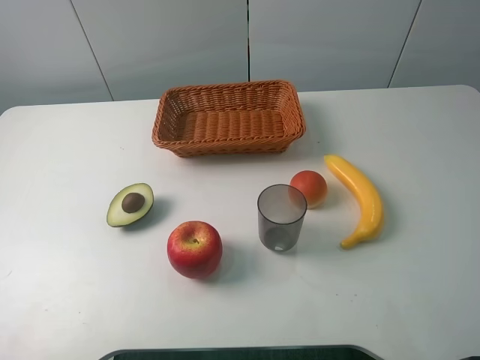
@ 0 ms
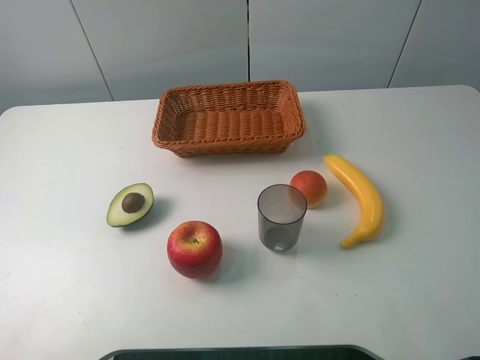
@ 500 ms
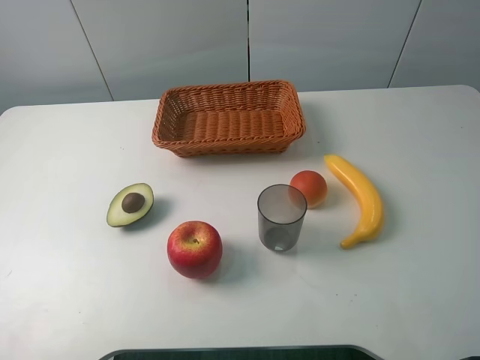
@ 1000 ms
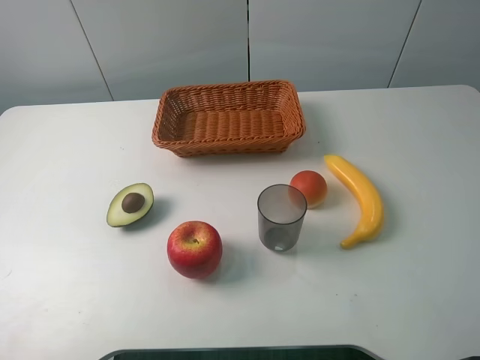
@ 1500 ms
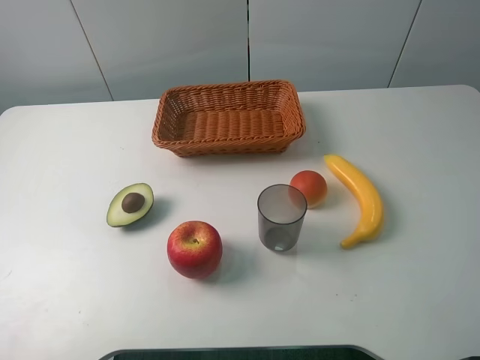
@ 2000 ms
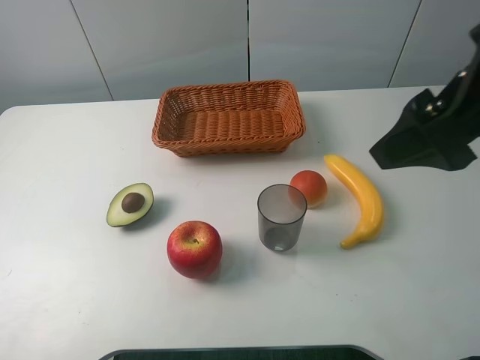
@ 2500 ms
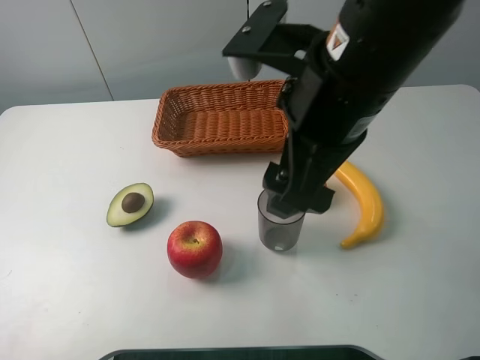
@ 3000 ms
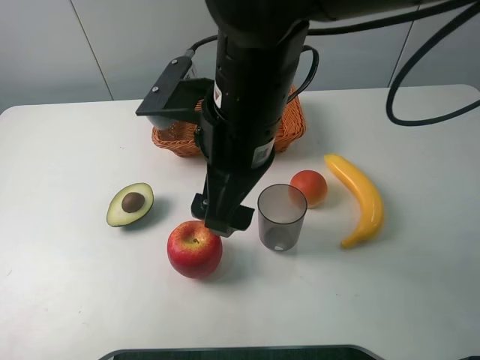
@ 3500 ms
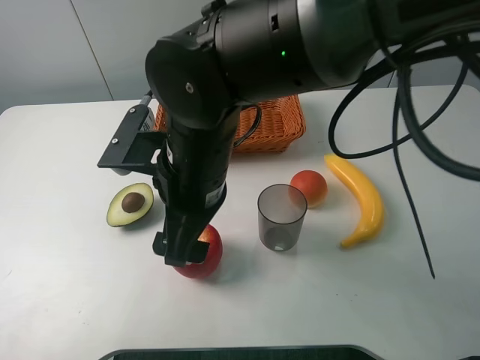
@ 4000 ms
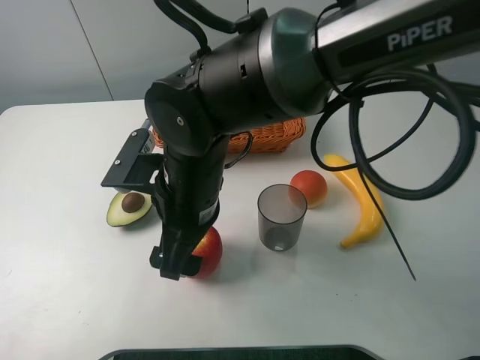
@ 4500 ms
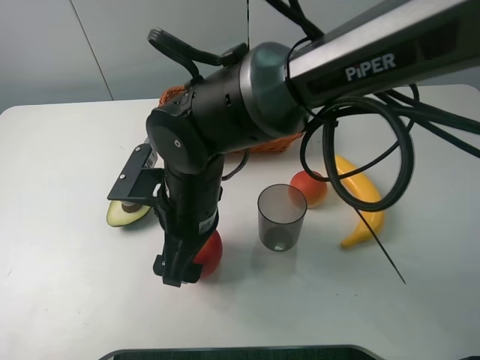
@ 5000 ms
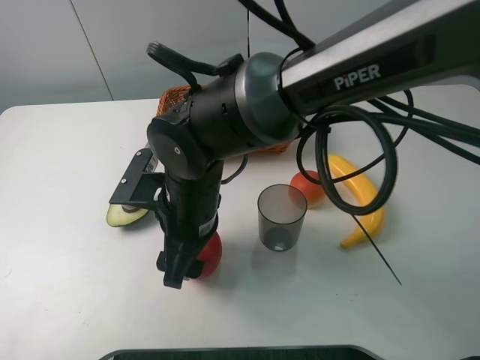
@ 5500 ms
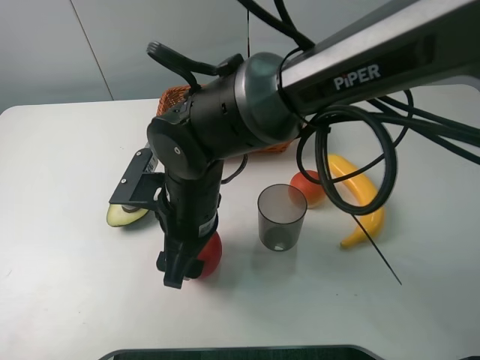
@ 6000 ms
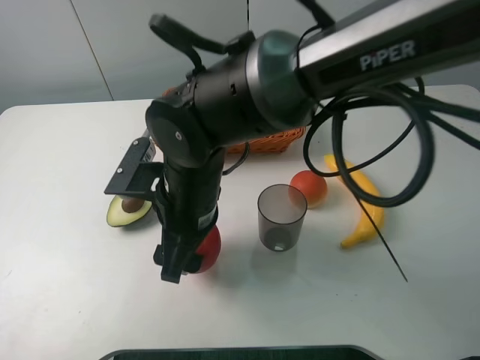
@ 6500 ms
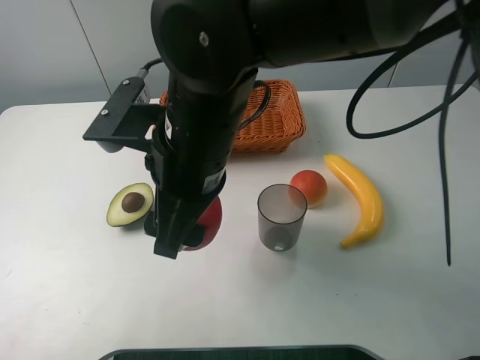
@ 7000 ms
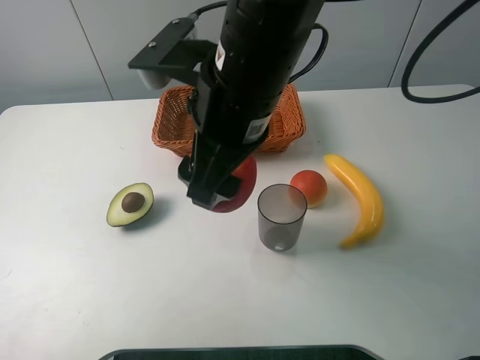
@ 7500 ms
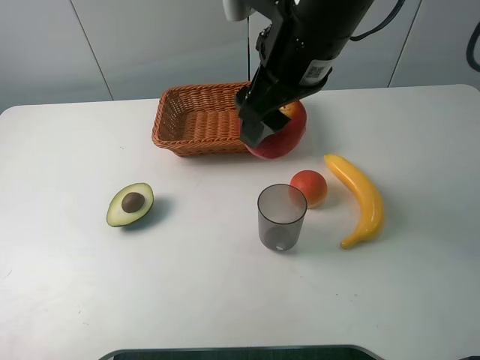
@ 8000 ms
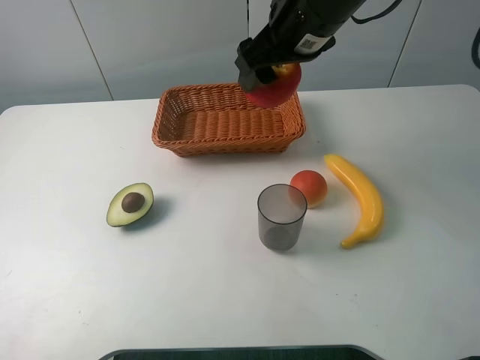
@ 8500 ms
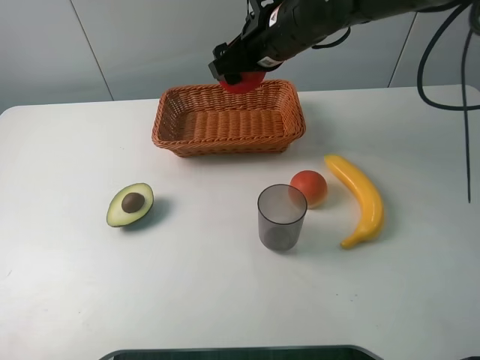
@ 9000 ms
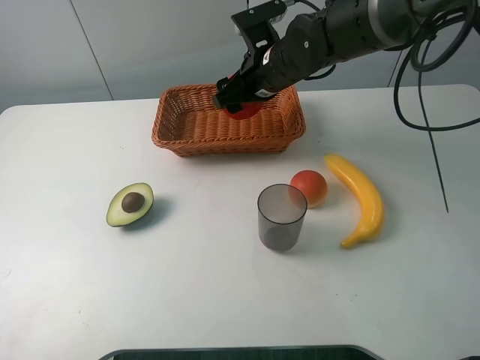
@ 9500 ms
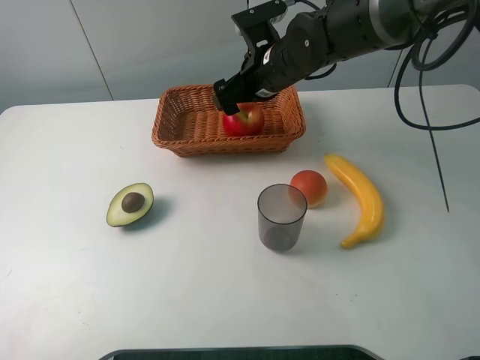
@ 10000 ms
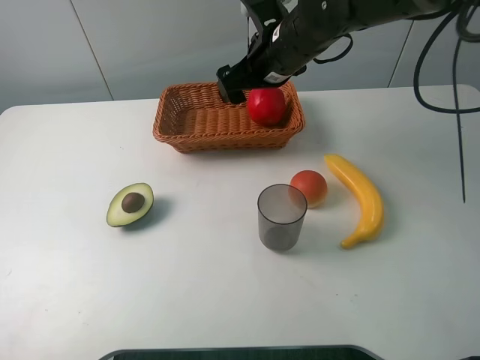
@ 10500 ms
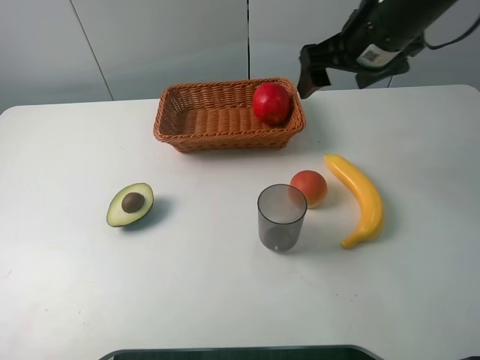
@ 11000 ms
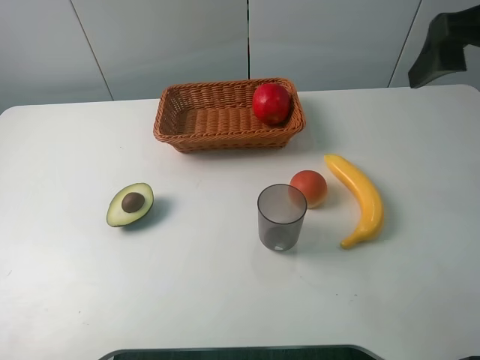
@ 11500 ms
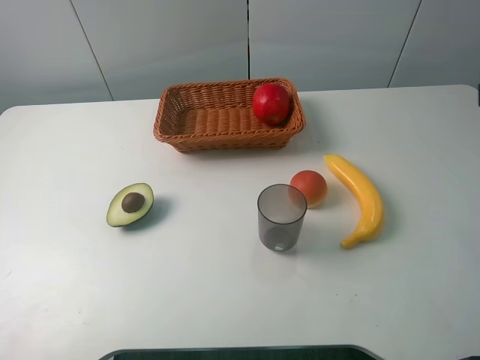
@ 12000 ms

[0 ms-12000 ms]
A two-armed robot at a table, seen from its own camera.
Task of the whole recording: randomly pick up an item from the table and put it in the basket.
Step, 0 ms to 5500 ms: Grasp the apple with the right gripper.
Step, 6000 ms to 10500 ms: Place the apple into the basket with the right gripper.
2000 ms to 4000 ms: The right gripper heads to the left and downward, covering some 35 cm.
4000 ms to 6000 ms: The right gripper heads downward, covering roughly 5 cm, and closes.
6000 ms to 8000 ms: The right gripper travels upward, to the right and forward by roughly 20 cm.
8000 ms to 10000 ms: The right gripper moves forward and downward, roughly 15 cm, and opens.
10000 ms to 12000 ms: The right gripper is displaced backward, to the right and upward by roughly 40 cm.

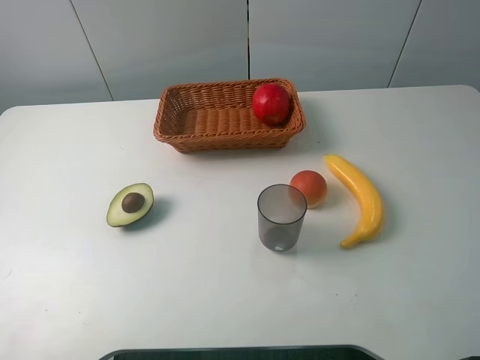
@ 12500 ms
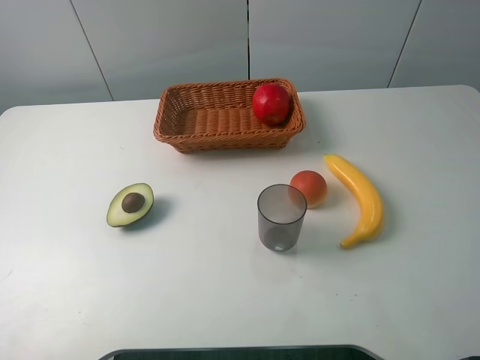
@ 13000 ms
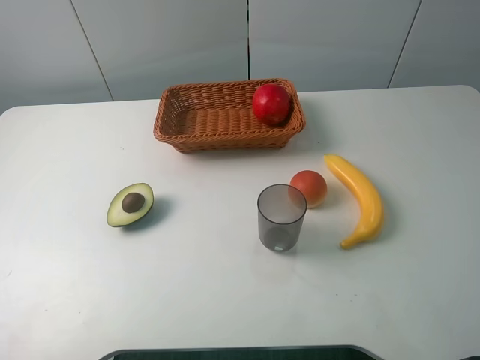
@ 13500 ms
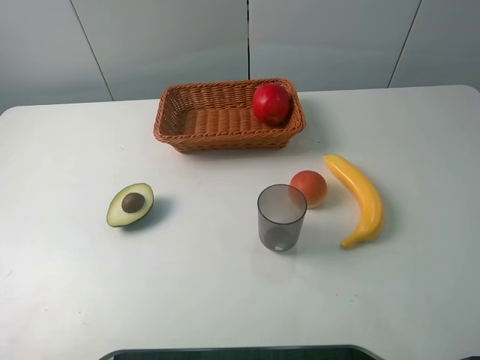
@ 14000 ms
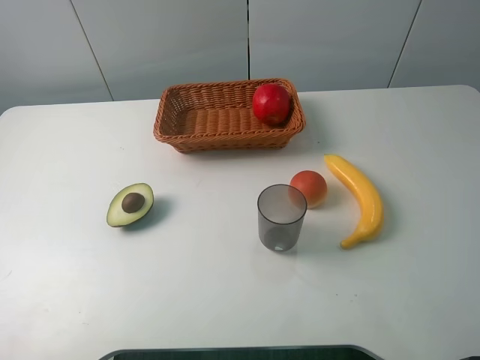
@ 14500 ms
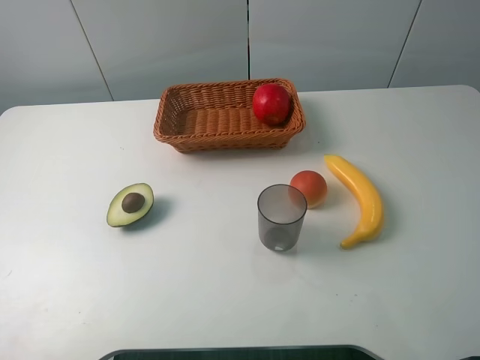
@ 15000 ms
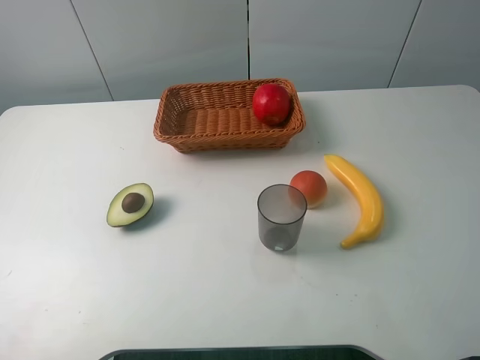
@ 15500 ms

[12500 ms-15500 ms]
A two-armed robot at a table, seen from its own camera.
Task of the whole recording: randomly pick up an item from the table and put it in the basket.
14000 ms to 15500 ms: Neither gripper changes place.

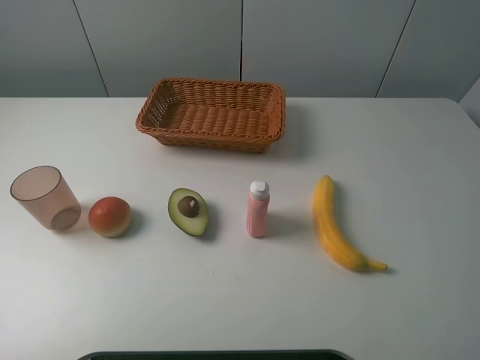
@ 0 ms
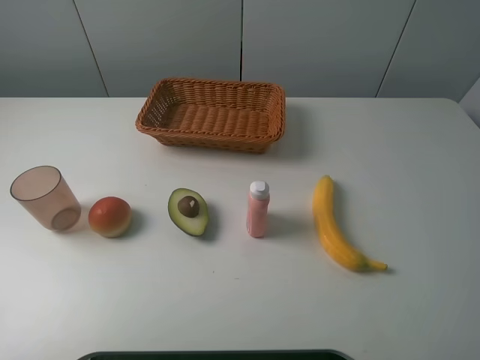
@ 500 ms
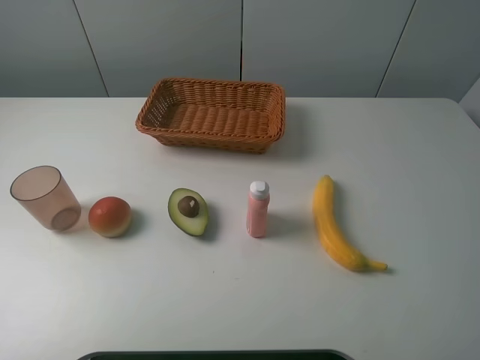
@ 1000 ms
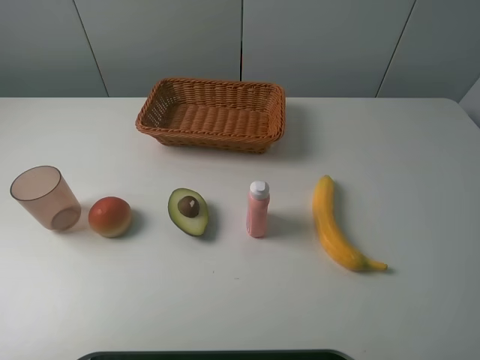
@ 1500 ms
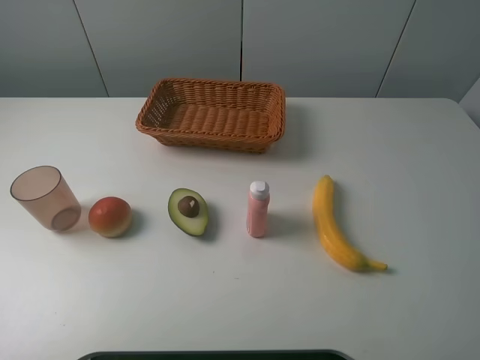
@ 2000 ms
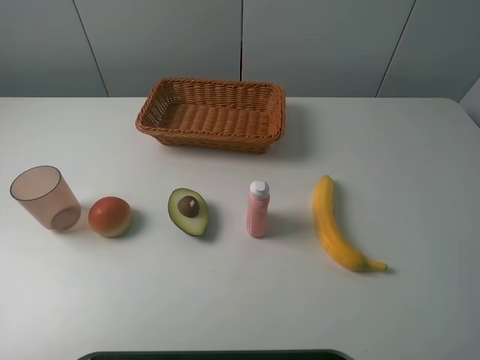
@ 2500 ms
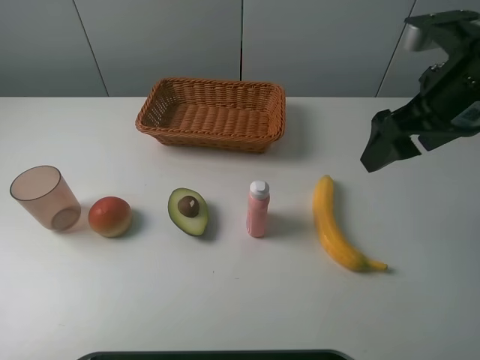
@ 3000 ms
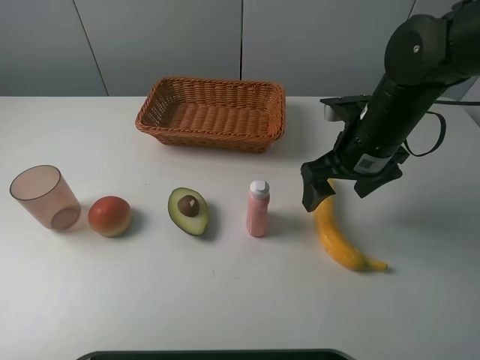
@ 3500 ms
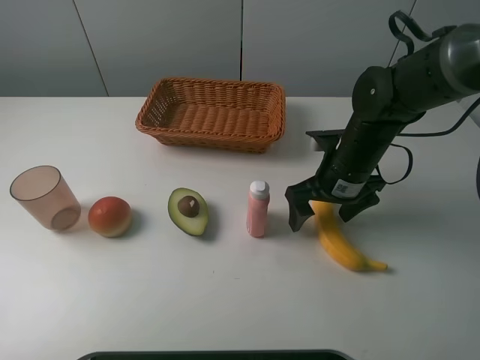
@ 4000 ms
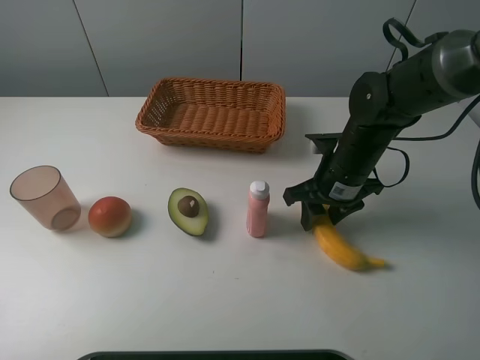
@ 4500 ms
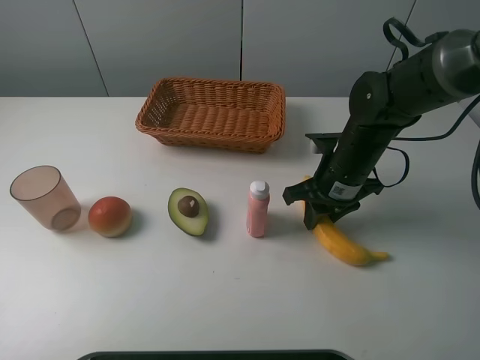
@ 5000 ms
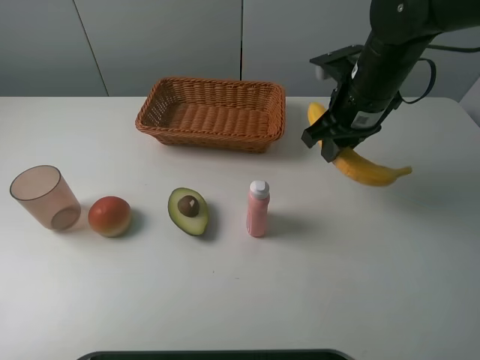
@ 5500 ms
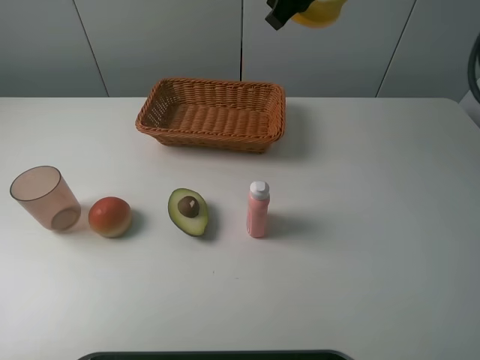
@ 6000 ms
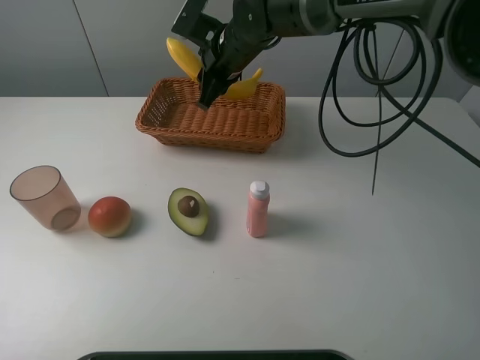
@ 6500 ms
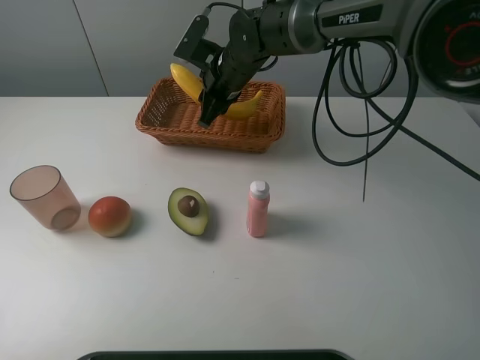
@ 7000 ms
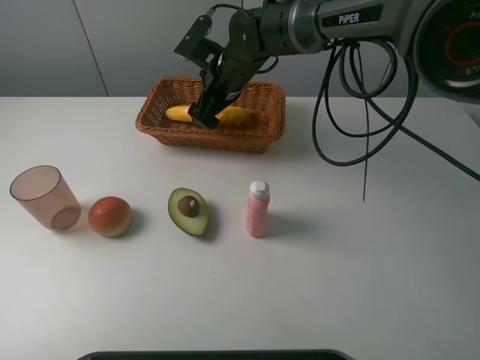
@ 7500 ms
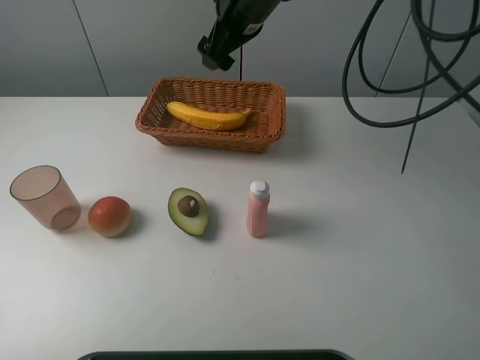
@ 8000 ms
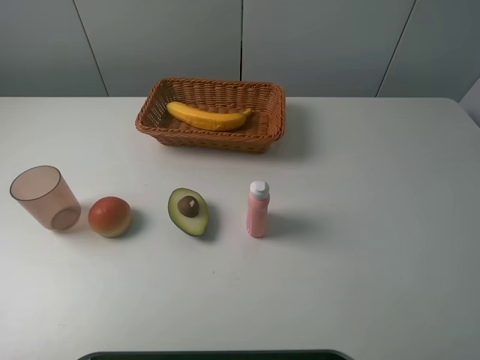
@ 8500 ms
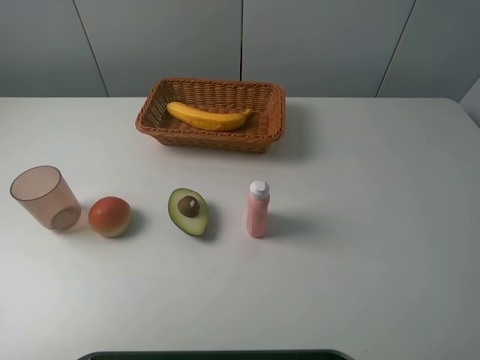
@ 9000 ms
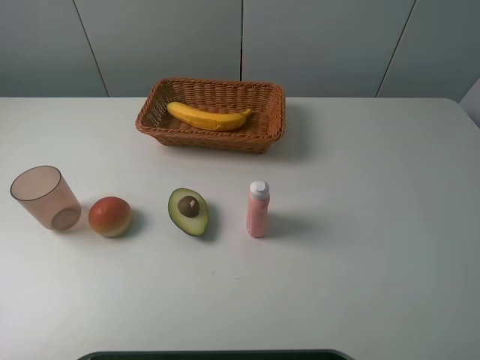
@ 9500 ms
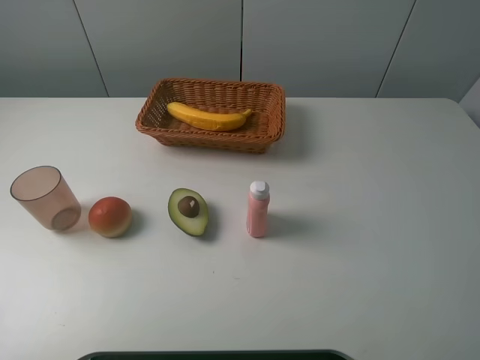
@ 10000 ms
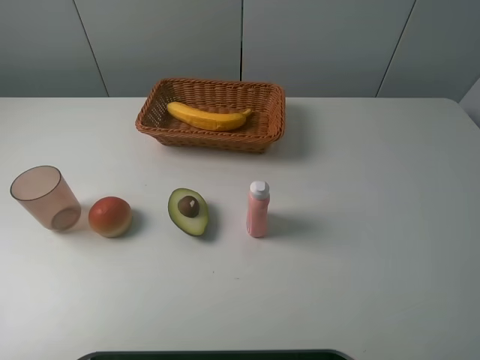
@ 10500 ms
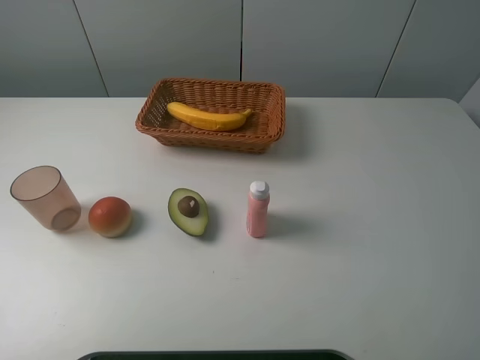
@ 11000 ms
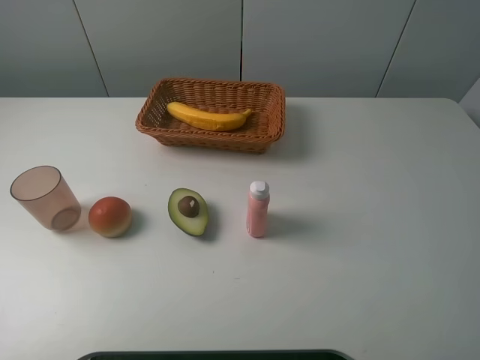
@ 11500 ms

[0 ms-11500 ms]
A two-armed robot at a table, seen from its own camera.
Task of the whole recording: randomly pick up an item from the table and put it in the basket.
Step, 0 ms to 4500 ms: Grasp the banana with the right gripper.
Step, 5000 ms to 8000 ms: Place the banana into the basket with the right gripper.
2000 ms to 4000 ms: The right gripper heads forward, downward and to the left, covering approximately 35 cm.
4000 ms to 6000 ms: The right gripper moves upward and forward, some 25 cm, and closes its fingers.
6000 ms to 7500 ms: The right gripper heads downward and to the left, covering roughly 20 cm, and opens its fingers.
7500 ms to 9500 ms: The right gripper shifts about 60 cm backward, to the right and upward.
